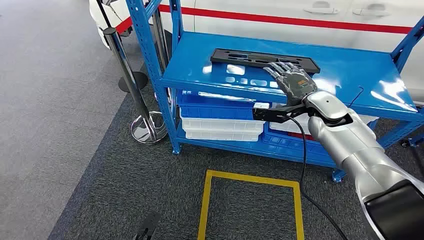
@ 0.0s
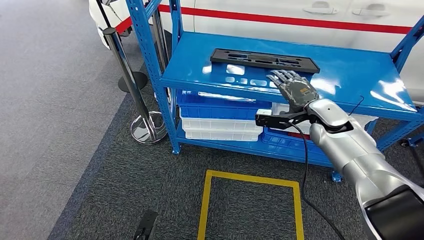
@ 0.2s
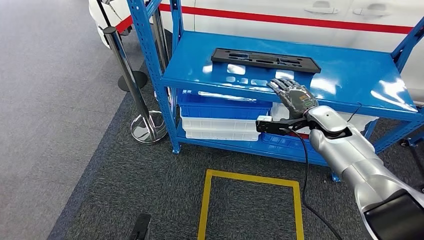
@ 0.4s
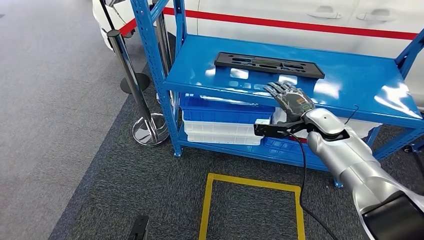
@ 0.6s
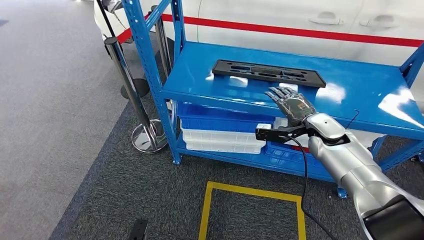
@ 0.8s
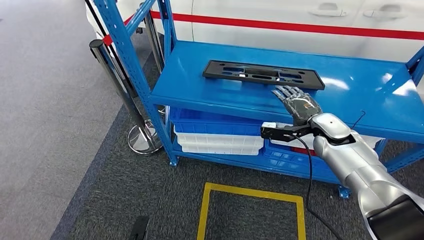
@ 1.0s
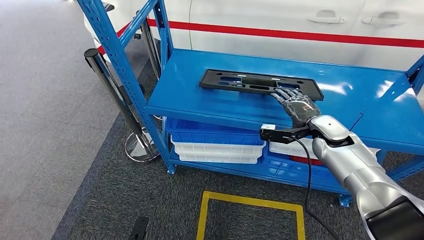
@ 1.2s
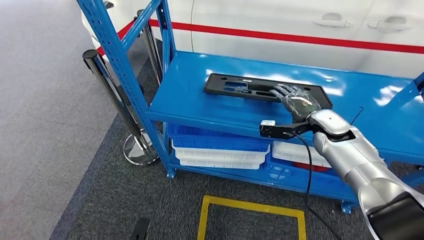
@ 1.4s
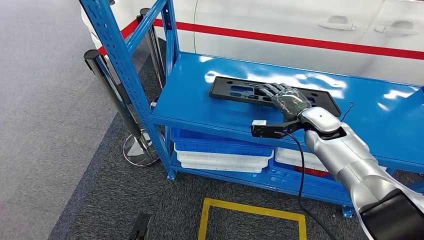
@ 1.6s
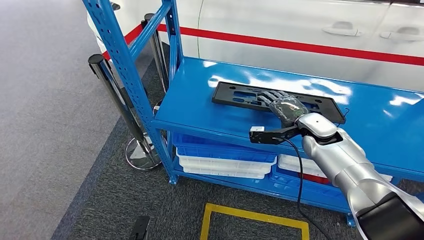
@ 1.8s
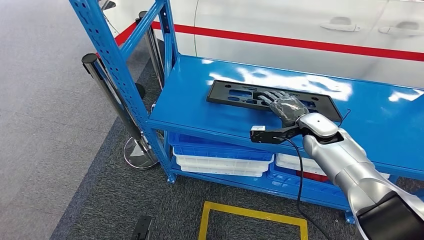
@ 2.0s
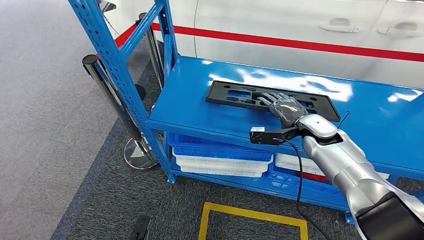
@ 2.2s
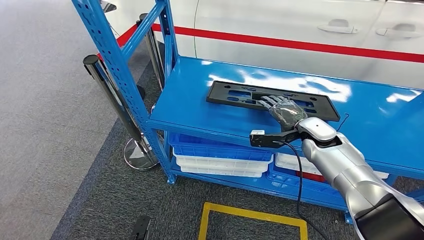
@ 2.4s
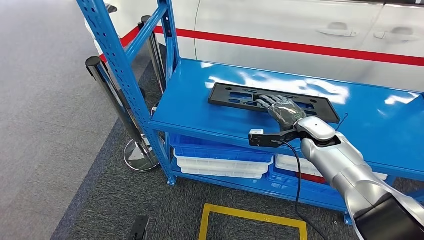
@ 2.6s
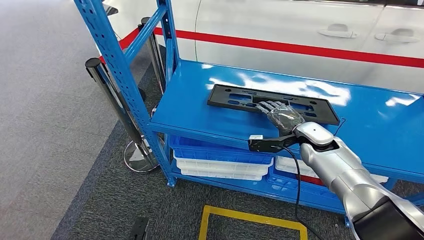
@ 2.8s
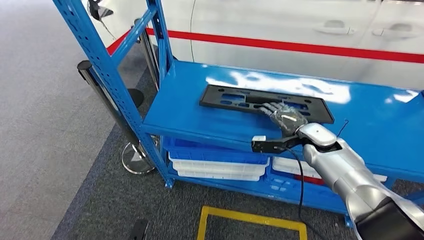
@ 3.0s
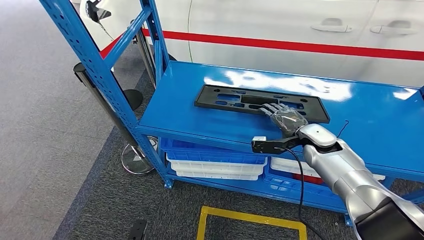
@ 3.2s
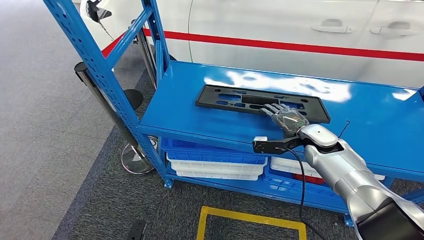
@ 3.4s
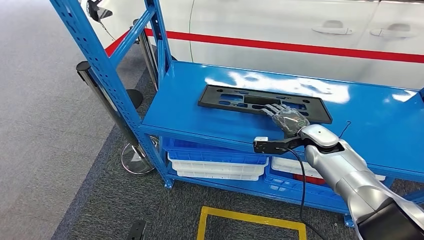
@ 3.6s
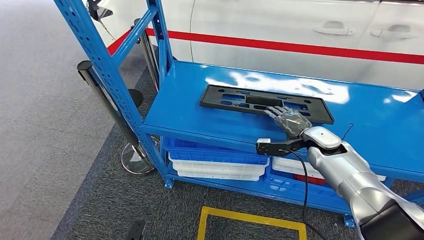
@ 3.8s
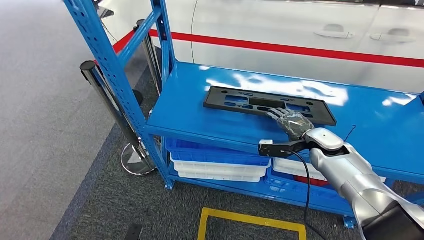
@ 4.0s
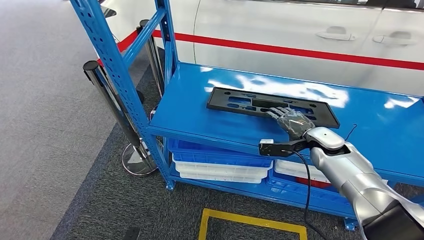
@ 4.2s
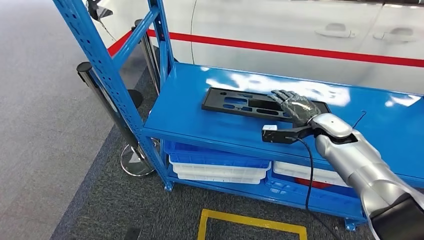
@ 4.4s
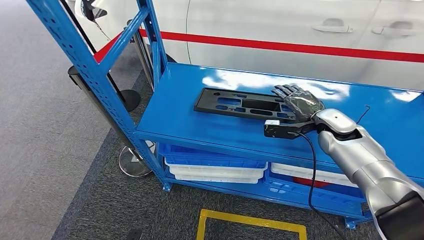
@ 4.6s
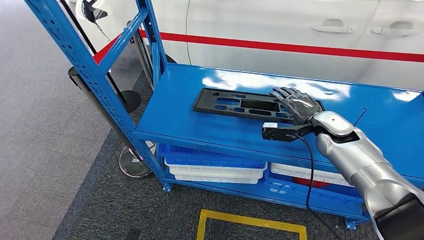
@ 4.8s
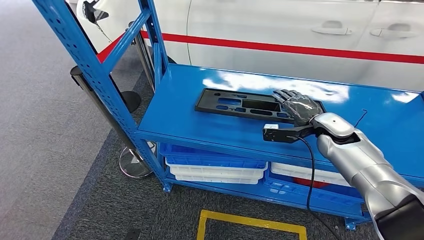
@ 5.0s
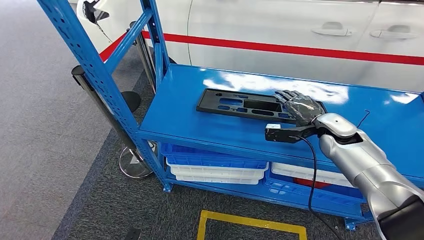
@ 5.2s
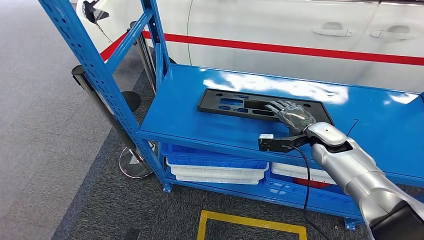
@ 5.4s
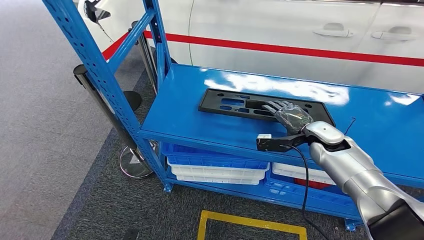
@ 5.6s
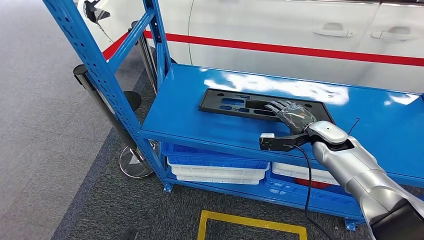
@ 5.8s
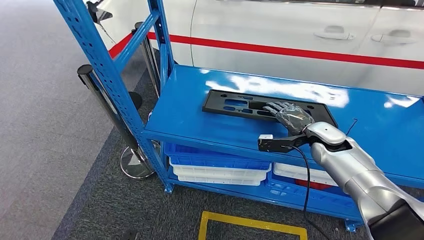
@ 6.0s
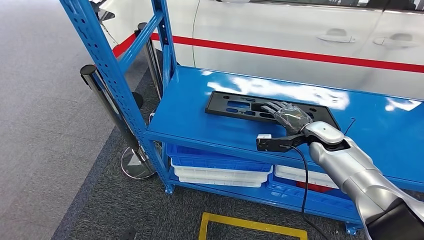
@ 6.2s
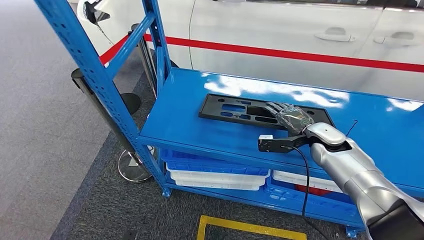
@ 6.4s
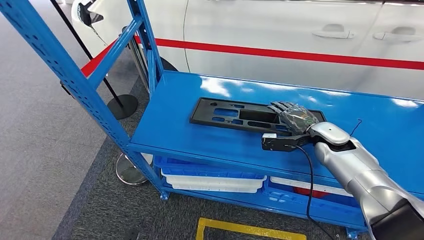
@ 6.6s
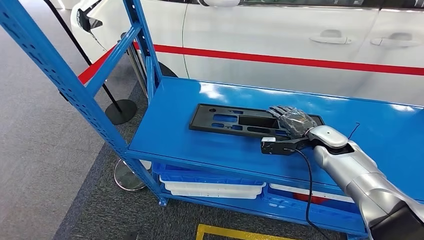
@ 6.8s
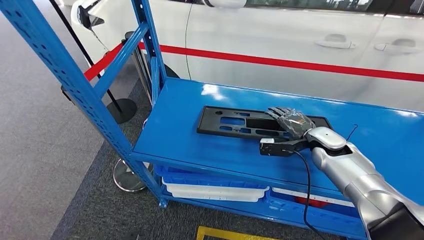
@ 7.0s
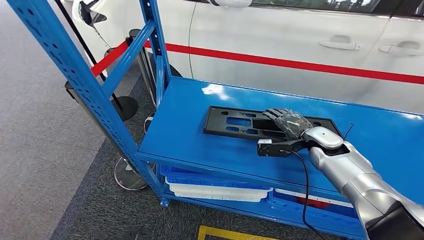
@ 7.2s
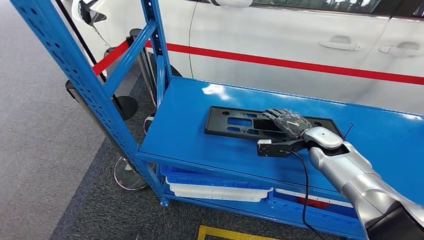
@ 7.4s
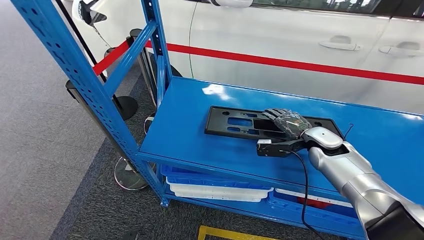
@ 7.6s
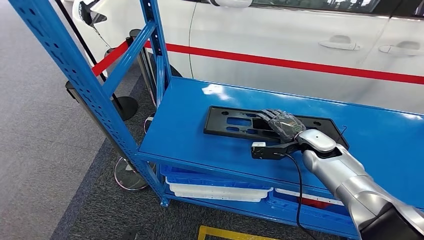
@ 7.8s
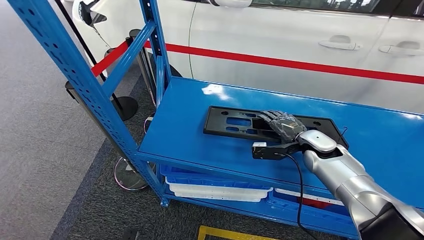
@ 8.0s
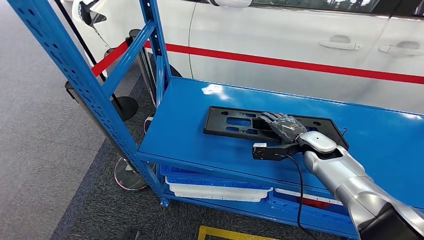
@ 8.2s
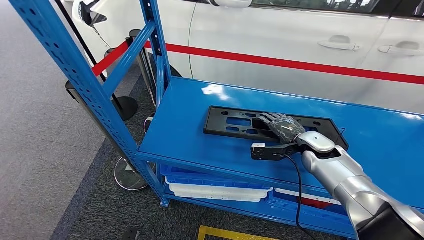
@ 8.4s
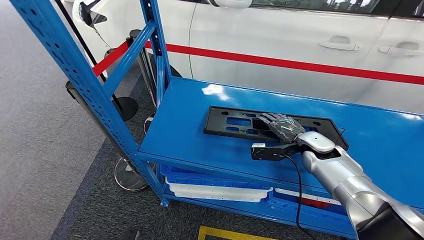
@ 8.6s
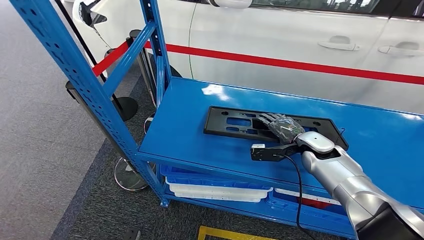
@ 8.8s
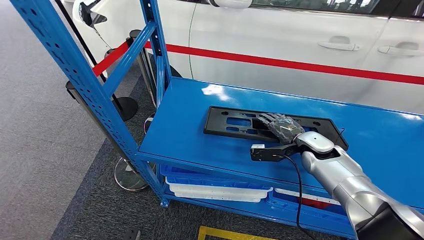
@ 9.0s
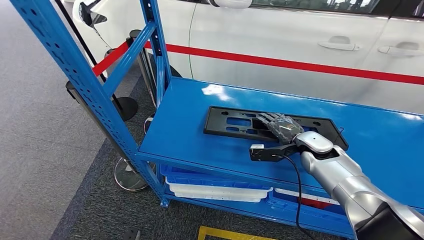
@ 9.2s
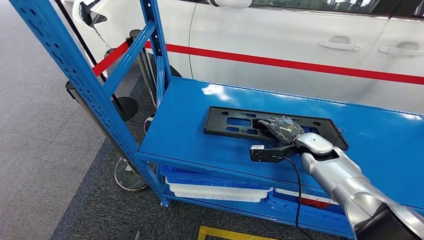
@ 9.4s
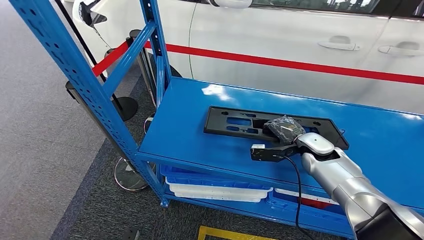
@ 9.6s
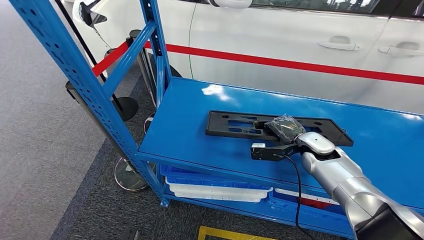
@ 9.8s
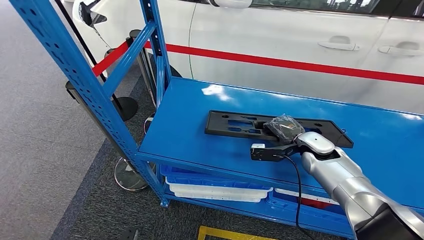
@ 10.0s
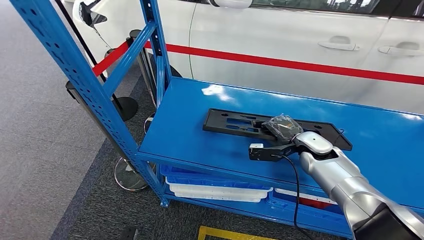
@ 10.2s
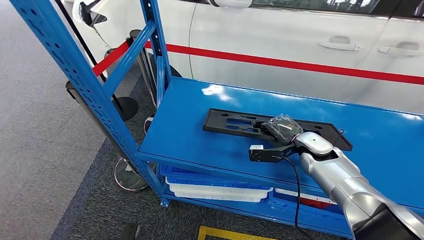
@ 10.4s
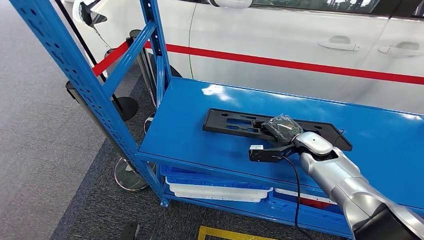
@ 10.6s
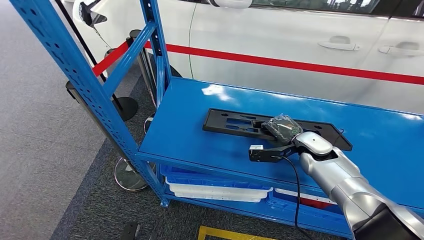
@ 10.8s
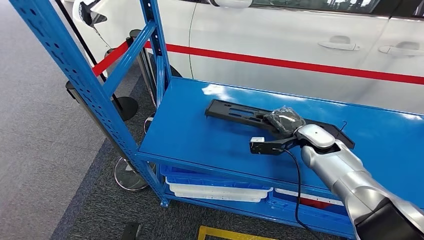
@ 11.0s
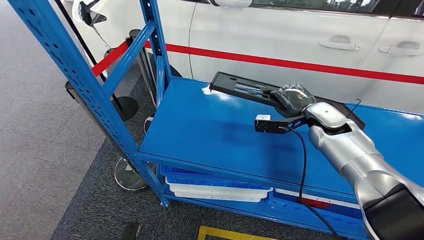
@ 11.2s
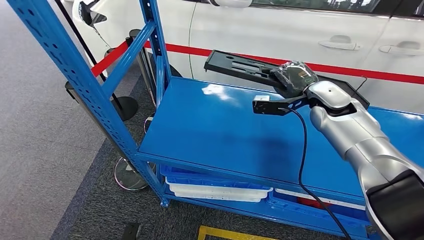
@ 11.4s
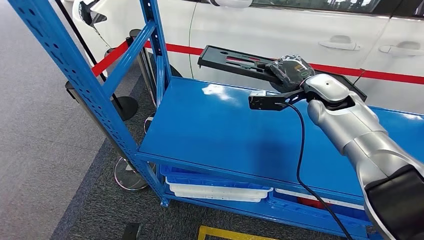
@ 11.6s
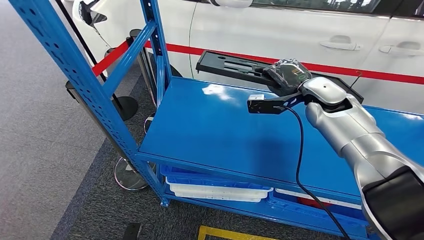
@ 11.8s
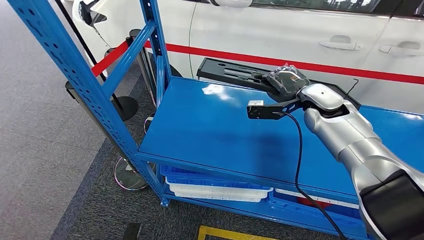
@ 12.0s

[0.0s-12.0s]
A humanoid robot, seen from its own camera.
Step, 0.0s to 11.6s: Pick up the large material from the shelf.
4.4s to 6.0s: The hands stay close to where they were, moving slightly.
7.6s to 10.4s: The hands move only a little.
10.4s to 12.0s: The right hand heads upward, covering about 15 cm.

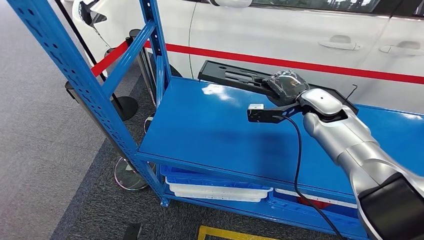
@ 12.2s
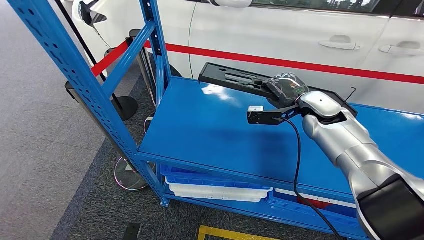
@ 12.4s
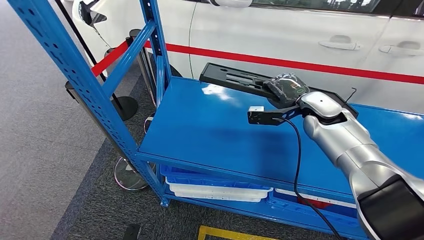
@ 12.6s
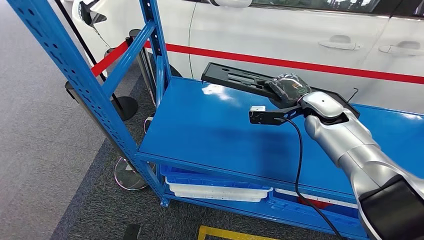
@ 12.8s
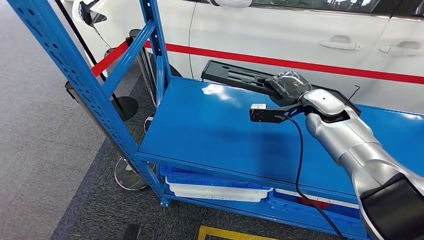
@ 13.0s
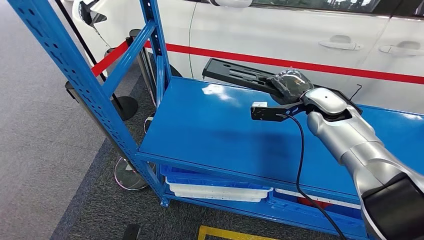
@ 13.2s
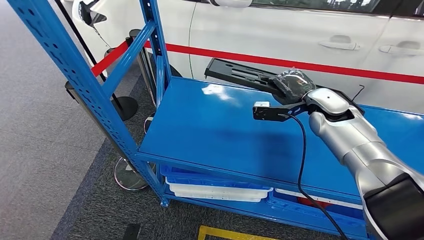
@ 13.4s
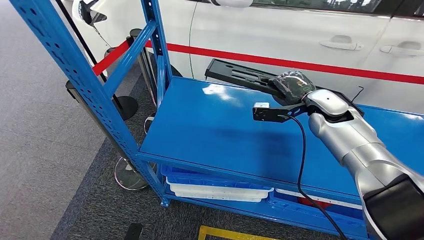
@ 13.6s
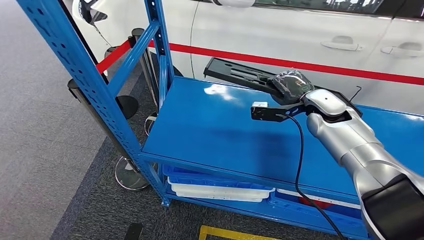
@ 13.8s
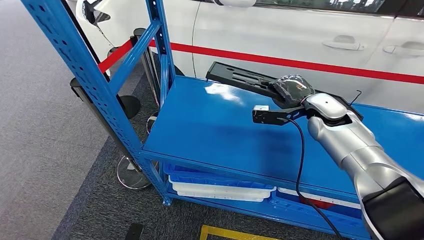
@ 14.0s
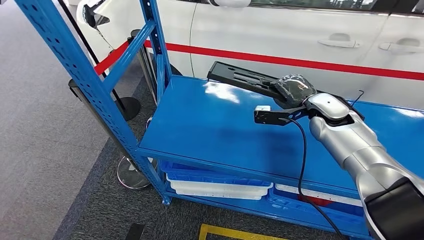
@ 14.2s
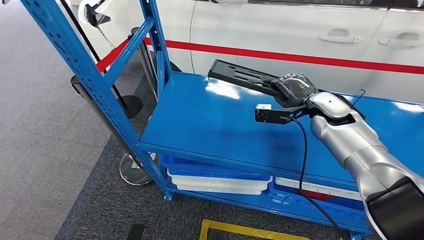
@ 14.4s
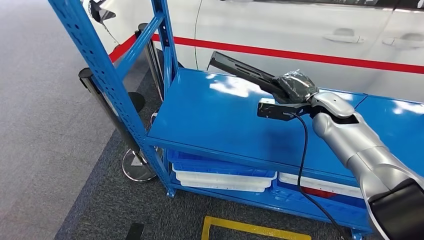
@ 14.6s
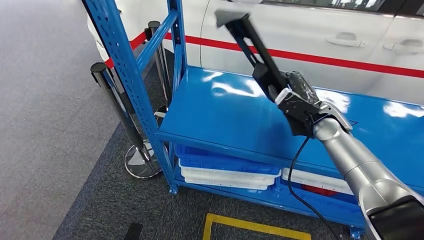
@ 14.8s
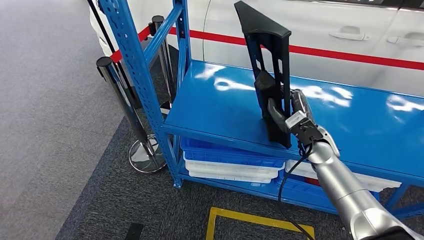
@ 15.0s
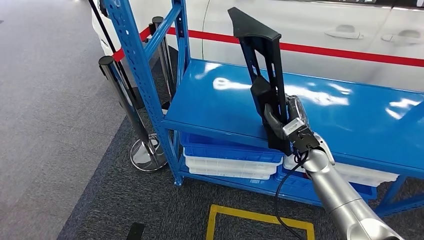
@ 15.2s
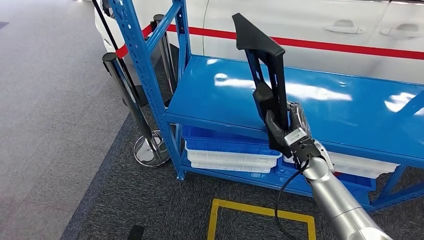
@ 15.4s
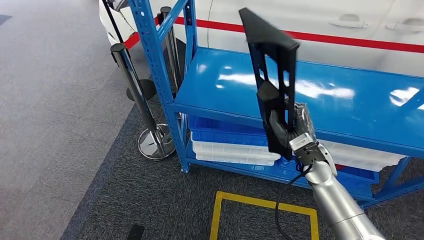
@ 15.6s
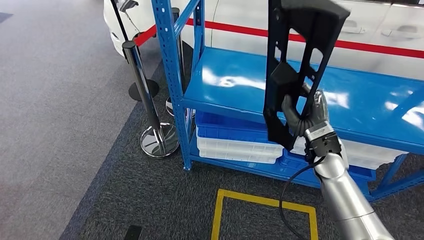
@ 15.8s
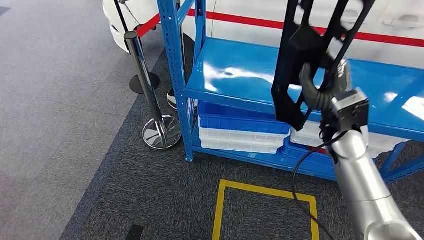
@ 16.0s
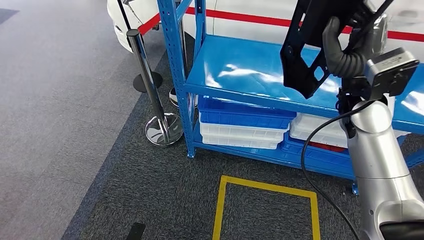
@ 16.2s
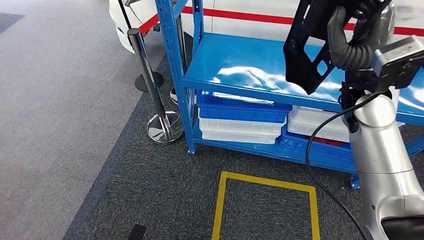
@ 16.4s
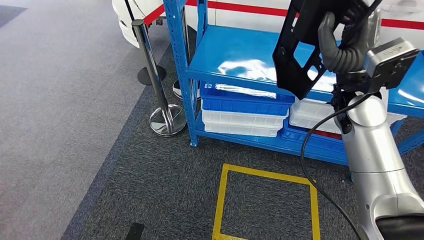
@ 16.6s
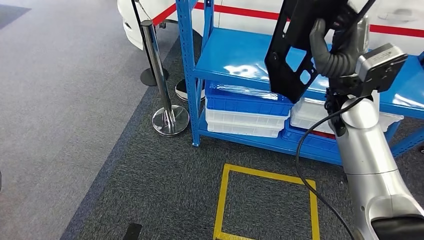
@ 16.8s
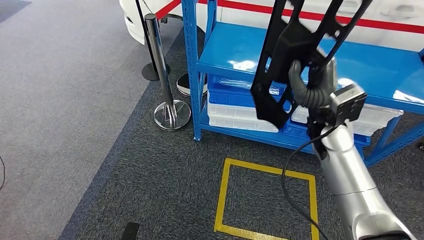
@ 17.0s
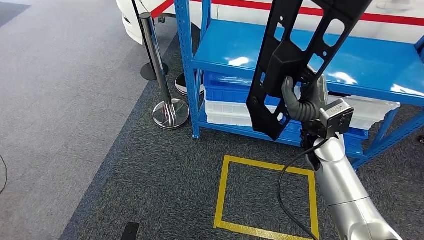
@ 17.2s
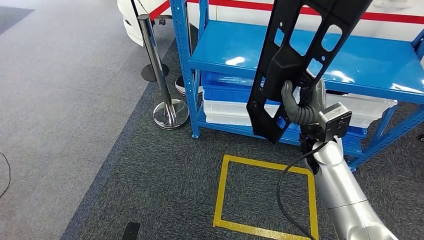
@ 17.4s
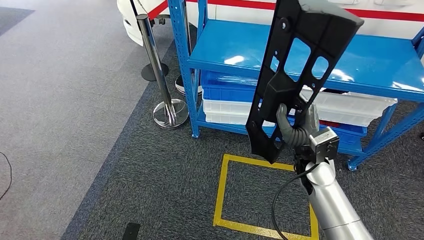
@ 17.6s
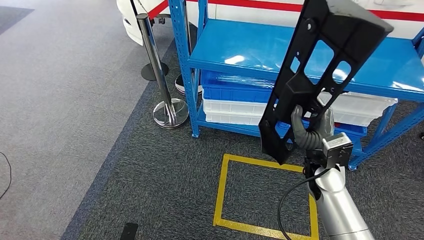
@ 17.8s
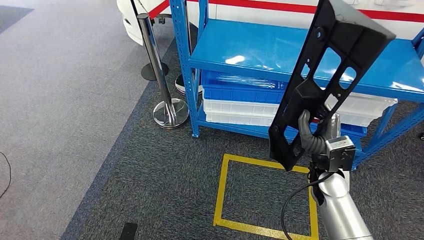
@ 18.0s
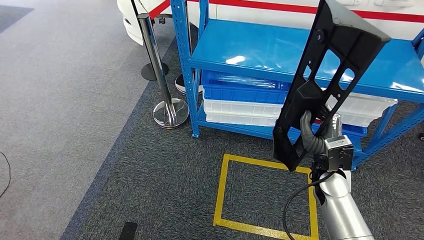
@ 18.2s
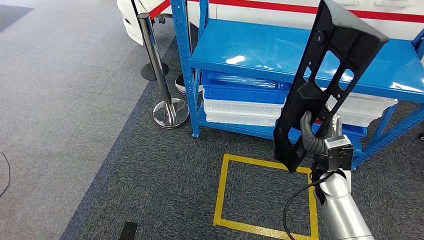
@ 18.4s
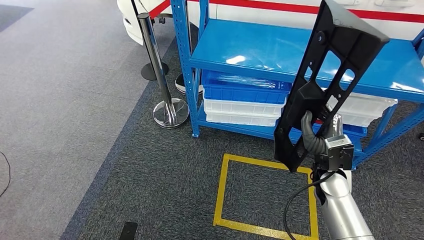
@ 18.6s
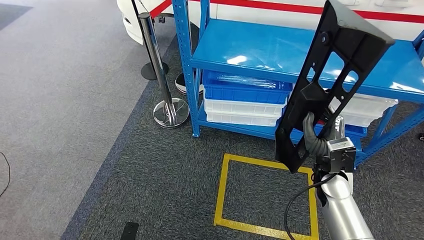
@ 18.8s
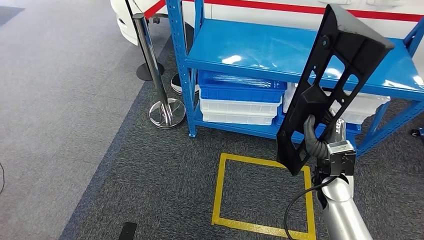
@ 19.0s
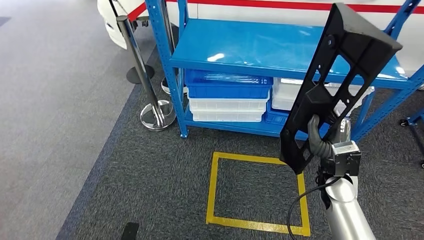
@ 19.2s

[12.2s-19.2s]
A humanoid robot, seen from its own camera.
12.2s to 13.6s: The hands stay close to where they were, moving slightly.
